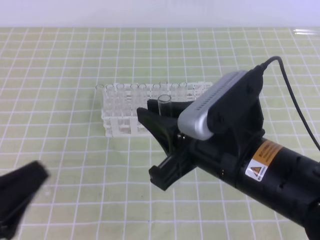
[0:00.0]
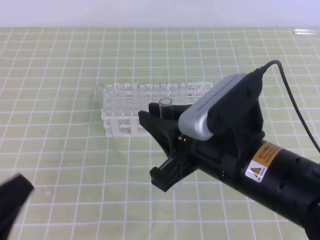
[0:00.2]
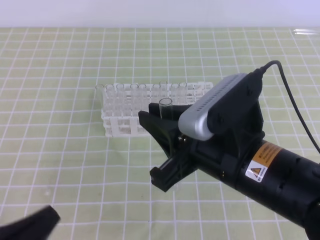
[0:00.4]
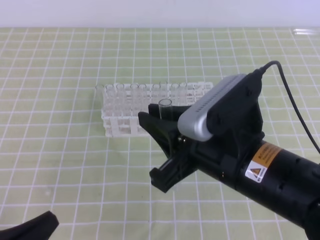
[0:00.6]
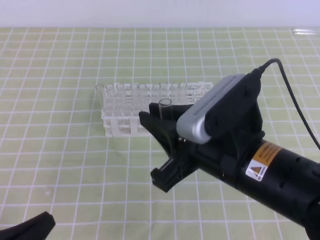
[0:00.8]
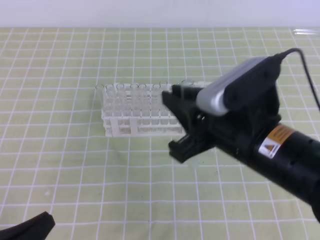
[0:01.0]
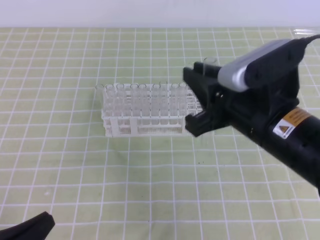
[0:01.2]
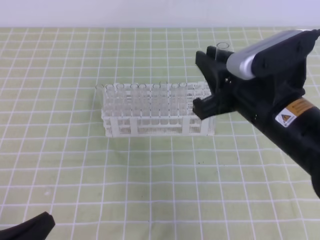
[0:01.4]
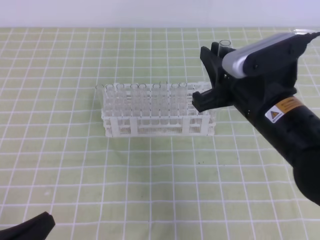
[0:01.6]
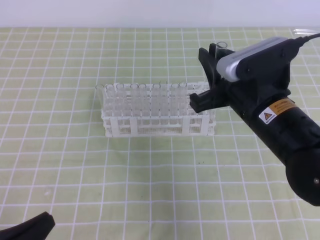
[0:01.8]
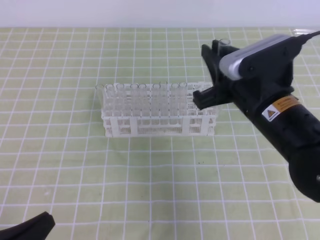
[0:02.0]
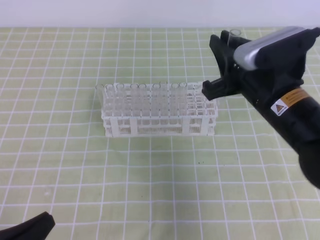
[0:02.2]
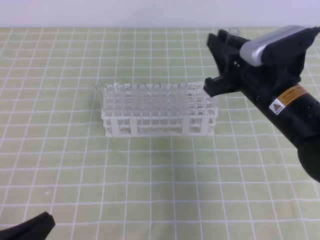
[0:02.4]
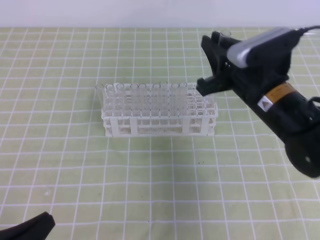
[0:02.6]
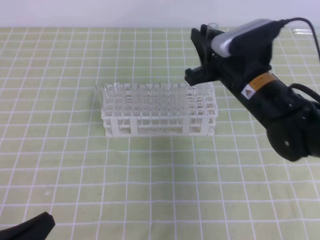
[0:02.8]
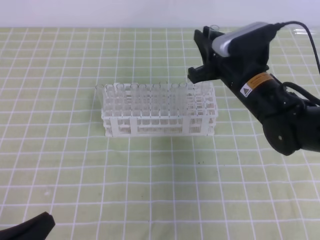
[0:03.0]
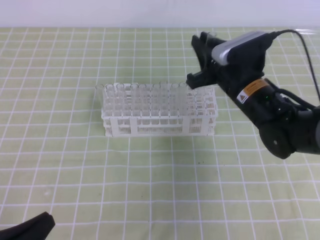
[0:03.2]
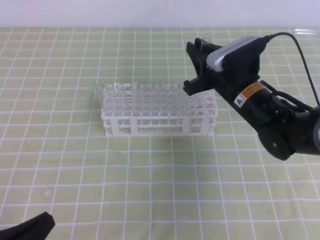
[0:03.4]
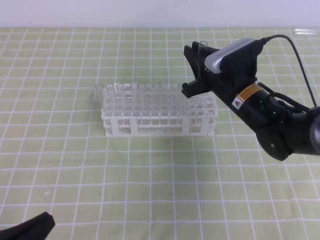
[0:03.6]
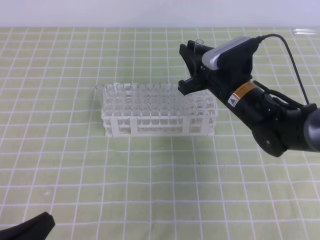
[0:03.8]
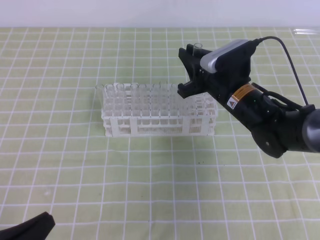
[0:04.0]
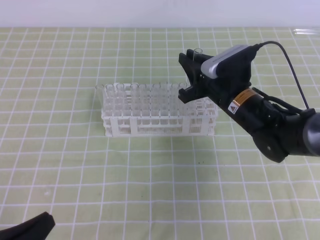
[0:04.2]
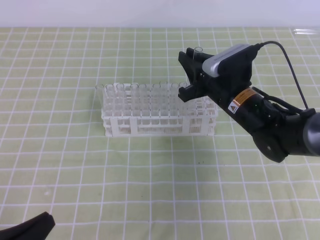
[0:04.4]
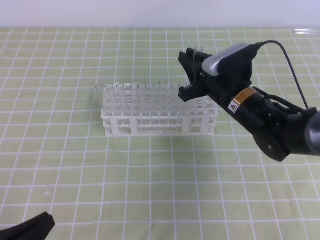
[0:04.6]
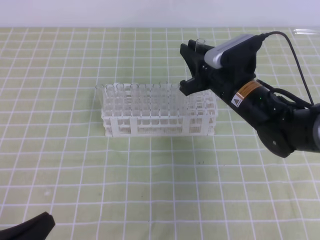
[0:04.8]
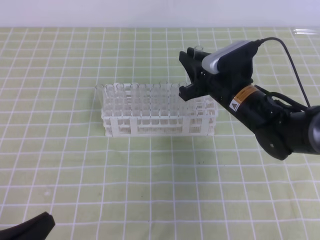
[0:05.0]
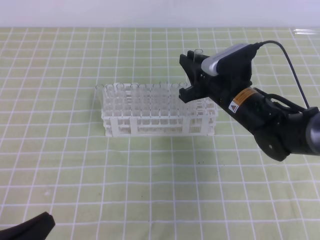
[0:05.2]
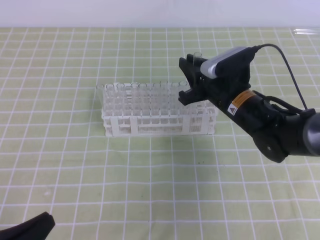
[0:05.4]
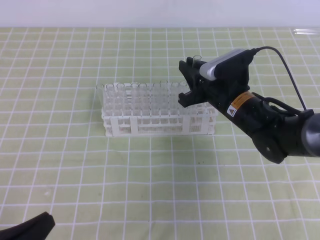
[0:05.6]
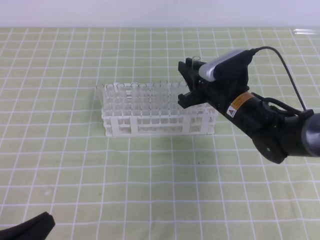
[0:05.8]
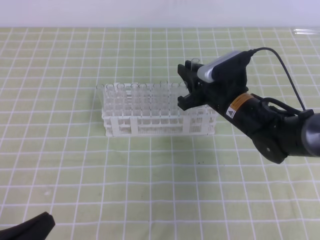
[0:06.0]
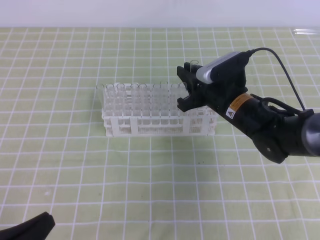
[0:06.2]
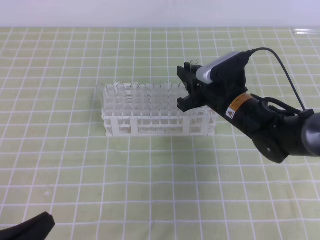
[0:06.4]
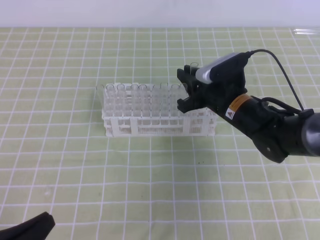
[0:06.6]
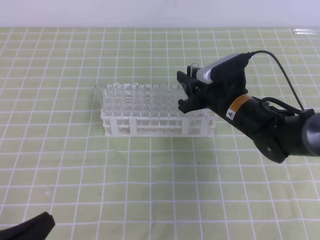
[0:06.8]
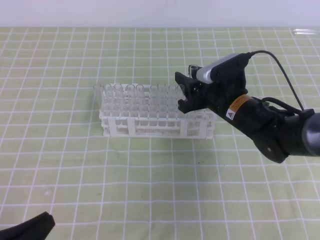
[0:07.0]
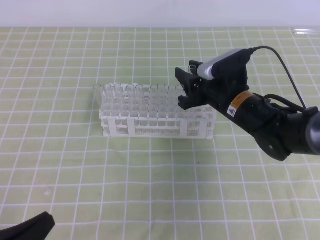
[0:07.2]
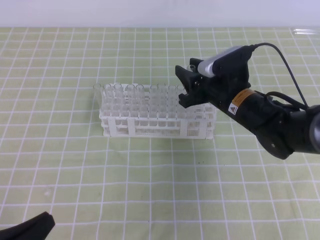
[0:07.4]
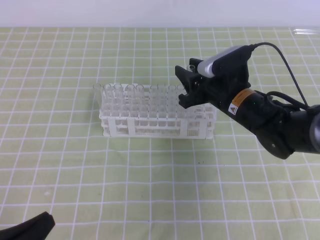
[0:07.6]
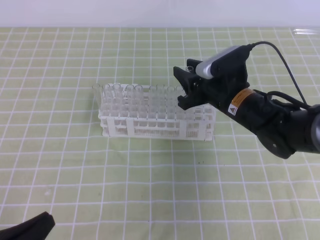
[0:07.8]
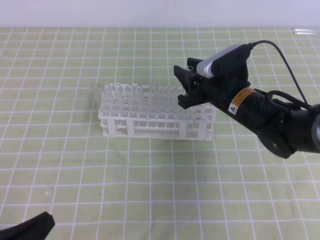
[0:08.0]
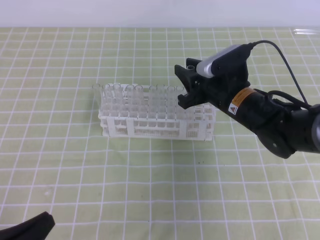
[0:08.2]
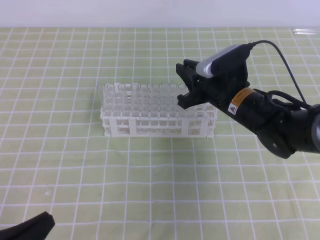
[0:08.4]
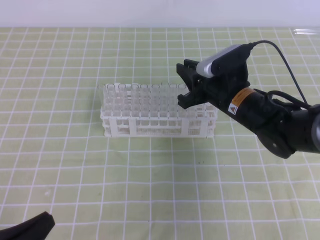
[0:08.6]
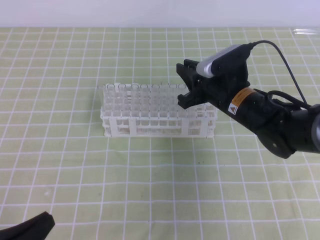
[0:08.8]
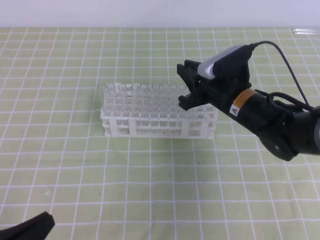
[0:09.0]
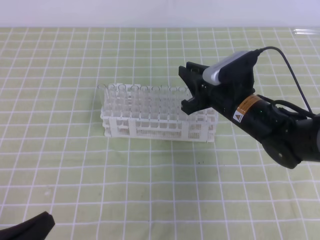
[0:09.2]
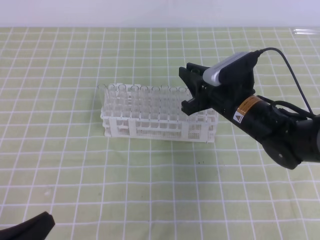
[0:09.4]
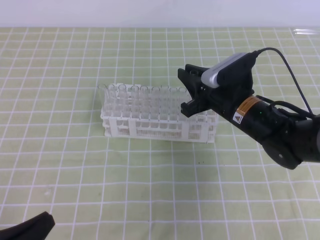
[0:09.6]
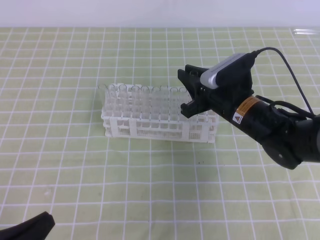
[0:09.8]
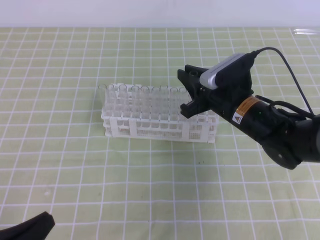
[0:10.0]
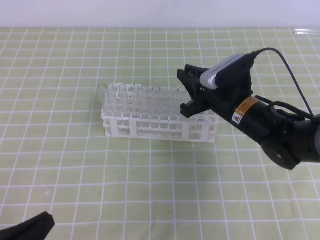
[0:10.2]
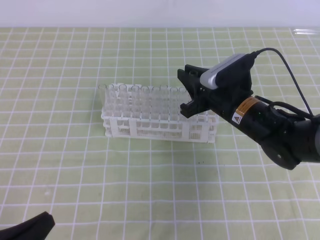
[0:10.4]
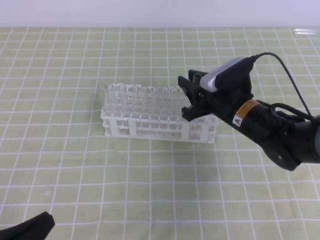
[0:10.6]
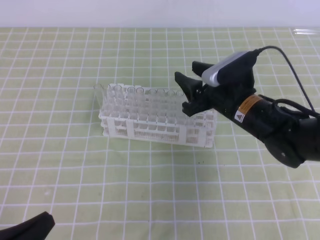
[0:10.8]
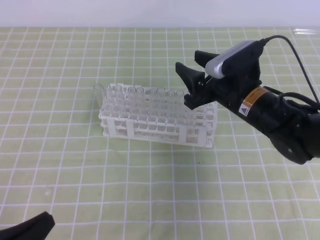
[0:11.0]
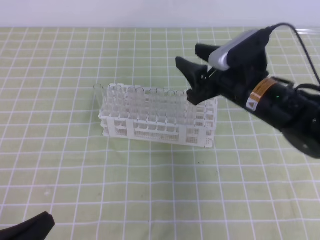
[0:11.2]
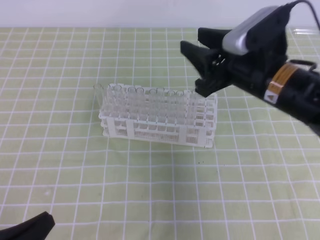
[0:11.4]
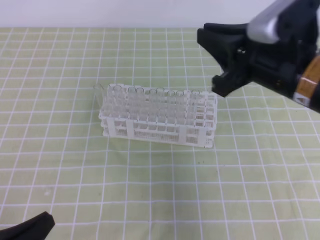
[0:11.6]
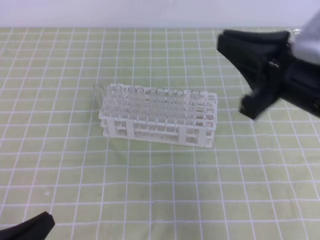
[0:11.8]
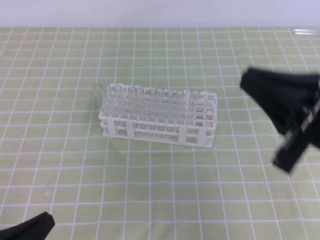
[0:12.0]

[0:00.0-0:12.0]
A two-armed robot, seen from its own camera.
0:00.0 to 0:01.6: The left gripper shifts about 10 cm downward, while the right gripper moves forward, some 10 cm.
0:01.6 to 0:03.0: The right gripper moves forward and downward, roughly 10 cm.
0:03.0 to 0:04.4: The right gripper shifts by approximately 5 cm.
0:04.4 to 0:06.0: There are only small adjustments of the grippers.
0:06.0 to 0:07.6: The right gripper opens its fingers.
0:07.6 to 0:09.0: The right gripper closes its fingers.
0:09.0 to 0:10.4: The two grippers keep their place.
0:10.4 to 0:12.0: The right gripper moves backward, upward and to the right, about 25 cm, and opens, then closes again.

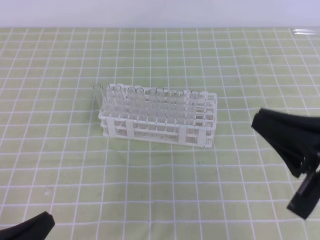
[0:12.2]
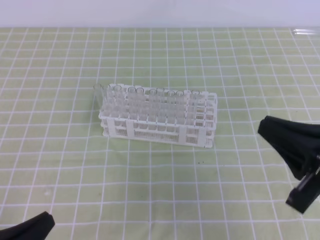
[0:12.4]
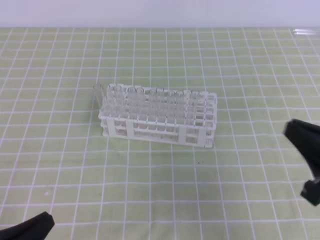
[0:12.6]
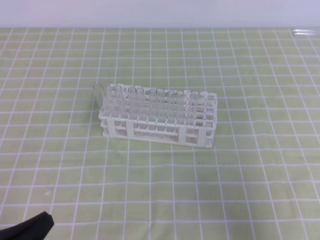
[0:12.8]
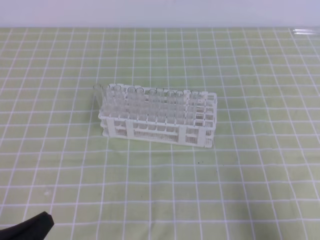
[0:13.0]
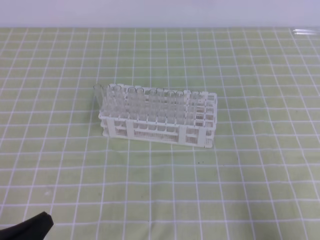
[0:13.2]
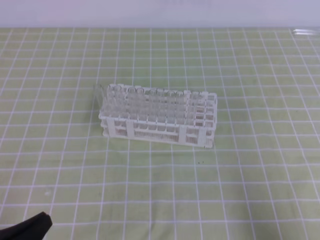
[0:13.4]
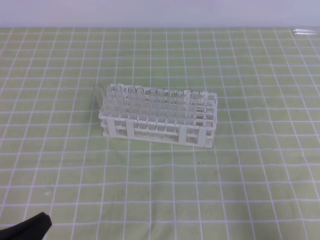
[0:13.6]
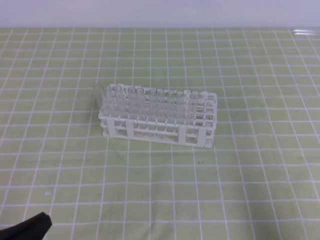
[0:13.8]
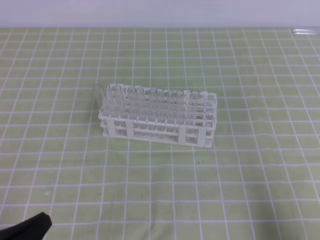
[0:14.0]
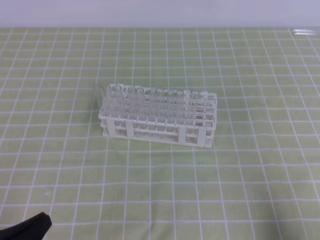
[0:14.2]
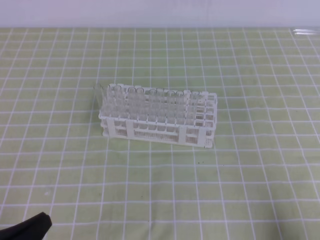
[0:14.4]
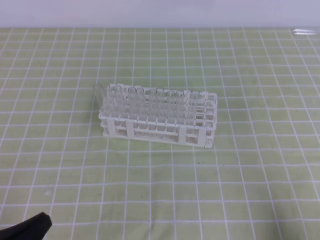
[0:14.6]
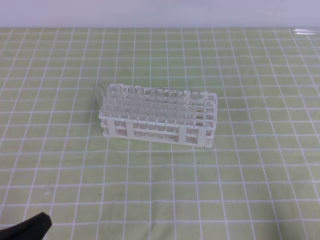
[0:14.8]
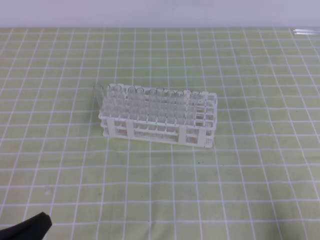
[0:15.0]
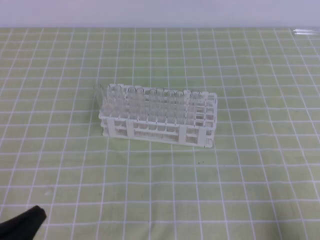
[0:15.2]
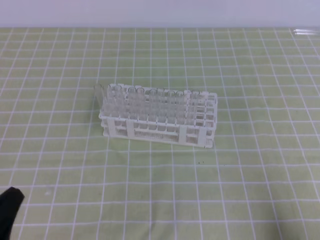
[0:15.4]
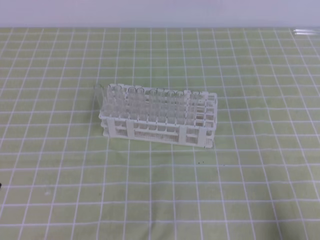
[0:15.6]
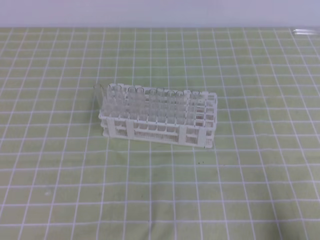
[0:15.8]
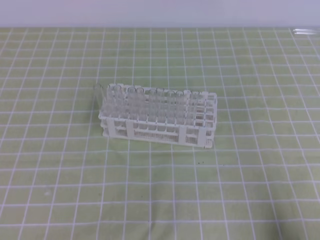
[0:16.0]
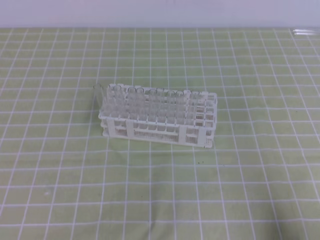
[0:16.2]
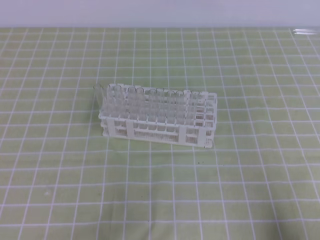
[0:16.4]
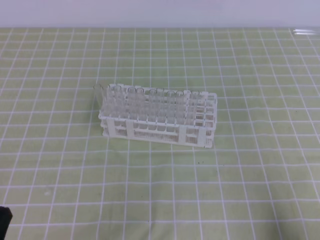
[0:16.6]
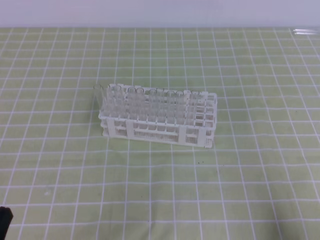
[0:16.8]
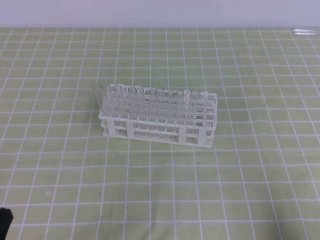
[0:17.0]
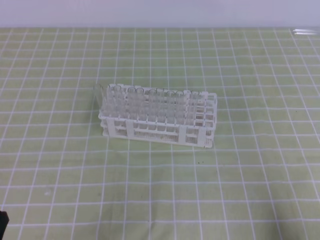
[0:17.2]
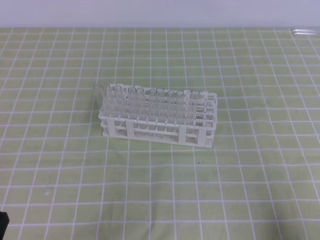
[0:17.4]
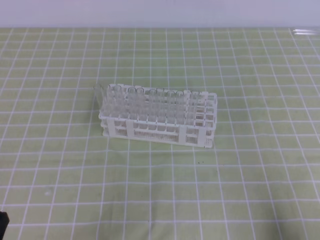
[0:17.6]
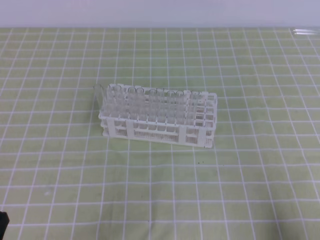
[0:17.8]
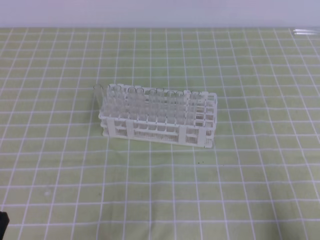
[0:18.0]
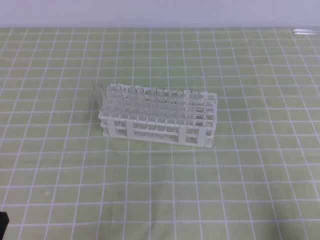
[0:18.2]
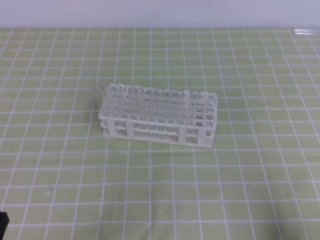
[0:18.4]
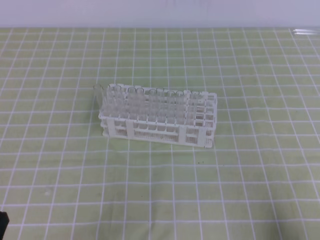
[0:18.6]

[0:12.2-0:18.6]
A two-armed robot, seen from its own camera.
0:12.2 to 0:13.8: The right gripper is displaced to the right, downward and backward by about 15 cm.
0:17.0 to 0:18.6: Neither gripper changes place.

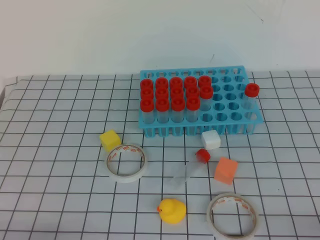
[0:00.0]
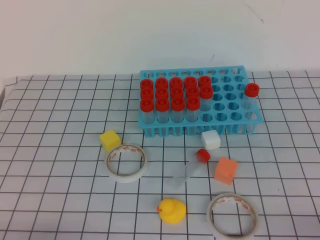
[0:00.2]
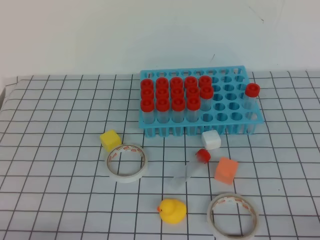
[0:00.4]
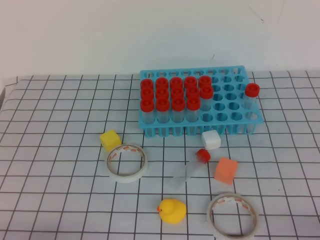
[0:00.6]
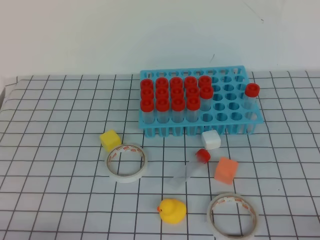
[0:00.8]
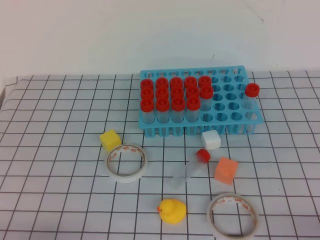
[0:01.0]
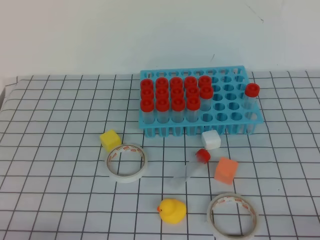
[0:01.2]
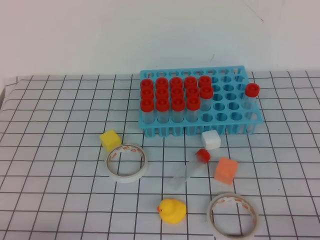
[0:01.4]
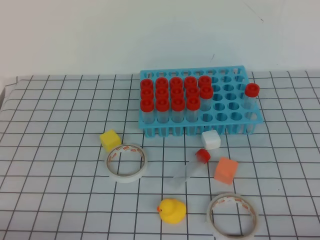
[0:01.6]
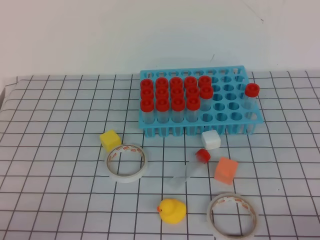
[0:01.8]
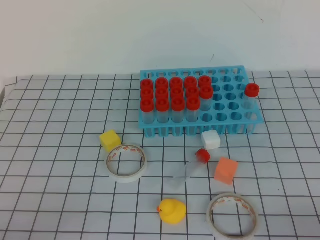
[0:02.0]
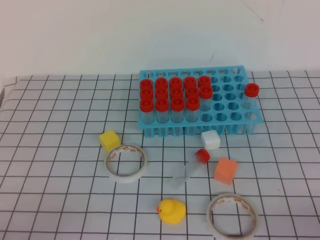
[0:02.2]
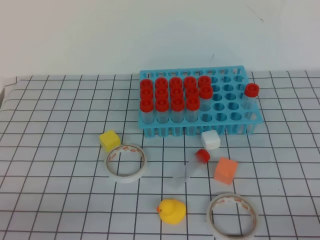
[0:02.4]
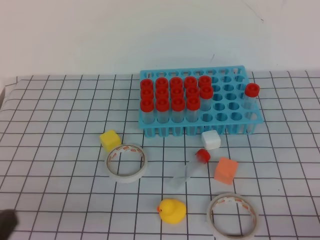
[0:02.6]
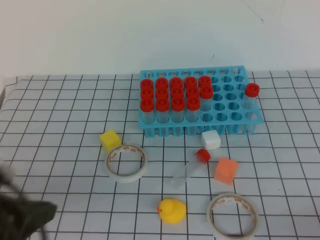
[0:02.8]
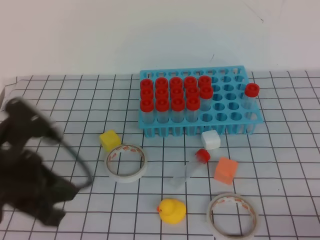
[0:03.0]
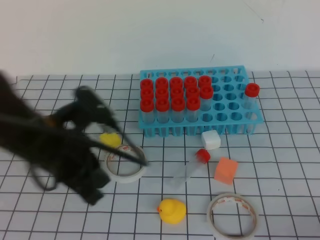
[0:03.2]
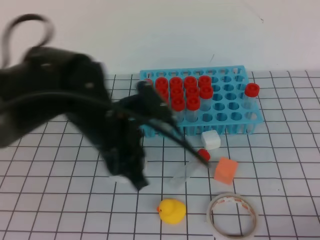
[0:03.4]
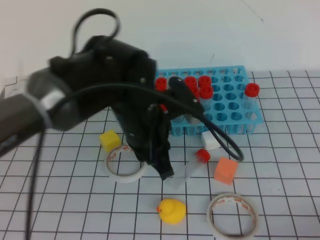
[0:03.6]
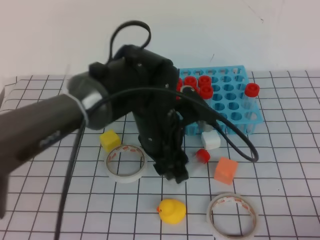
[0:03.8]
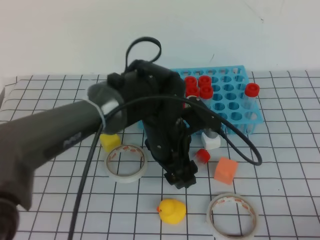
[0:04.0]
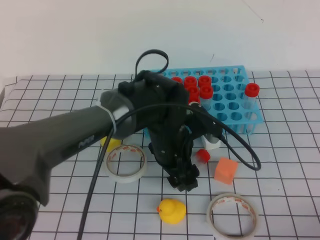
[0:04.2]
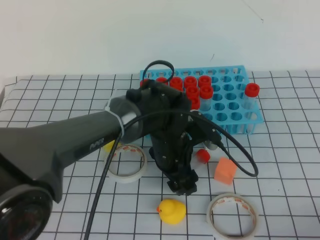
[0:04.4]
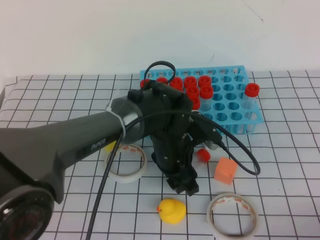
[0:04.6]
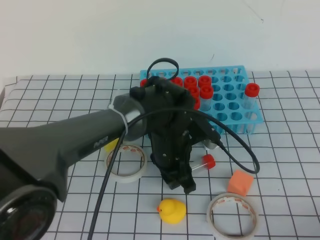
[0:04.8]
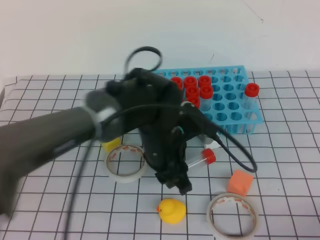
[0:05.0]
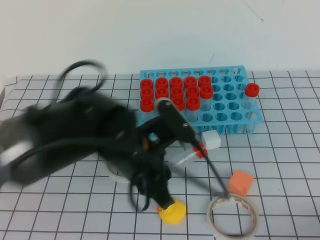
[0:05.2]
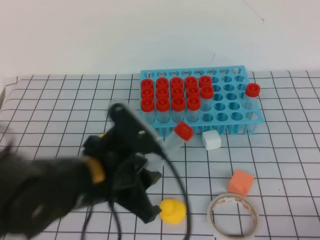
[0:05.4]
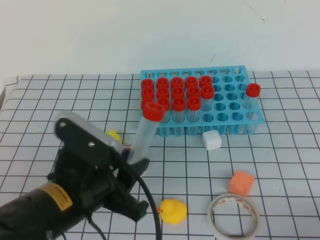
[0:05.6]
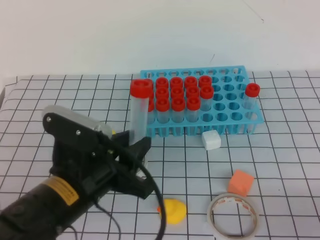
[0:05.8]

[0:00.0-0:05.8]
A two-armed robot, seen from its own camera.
0:01.4 to 0:02.8: The left gripper is displaced upward and forward by roughly 15 cm.
0:02.8 to 0:04.4: The left gripper shifts roughly 35 cm to the right, forward and downward, and opens its fingers.
0:04.4 to 0:05.8: The left gripper is displaced backward, to the left and upward by some 20 cm, and closes.
